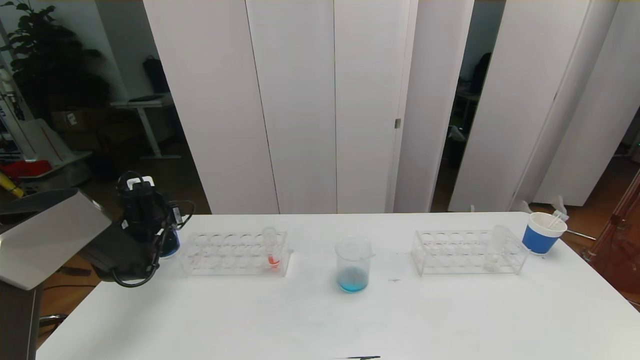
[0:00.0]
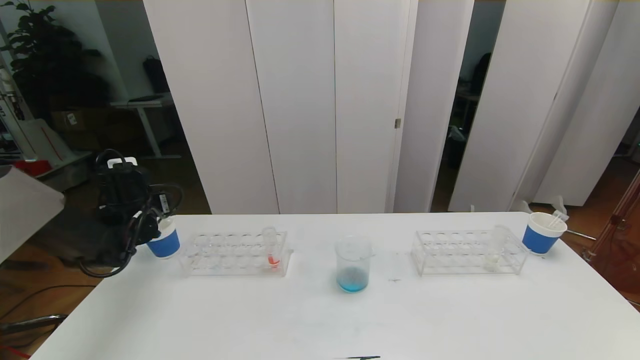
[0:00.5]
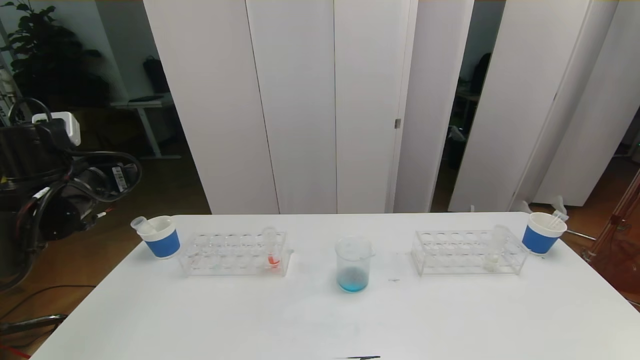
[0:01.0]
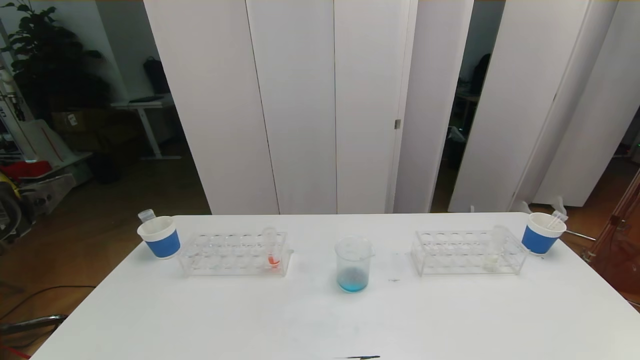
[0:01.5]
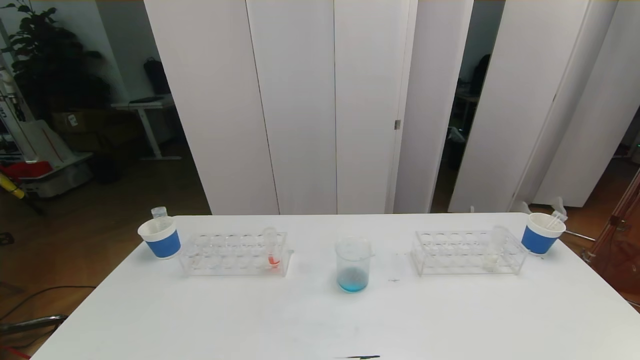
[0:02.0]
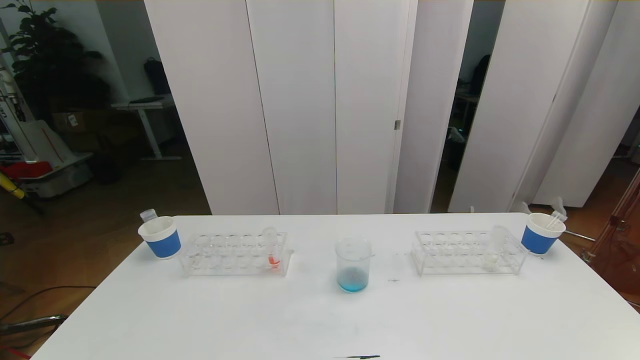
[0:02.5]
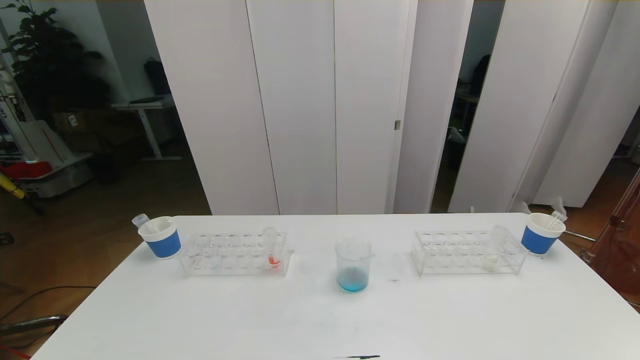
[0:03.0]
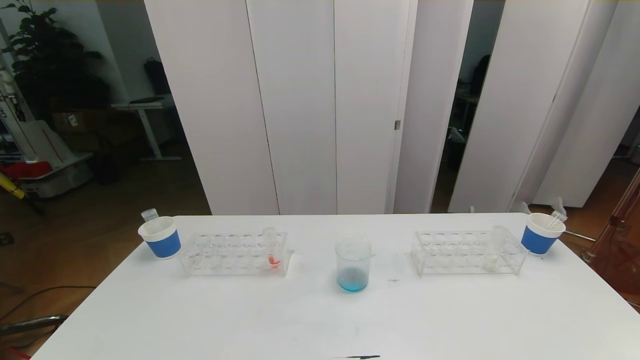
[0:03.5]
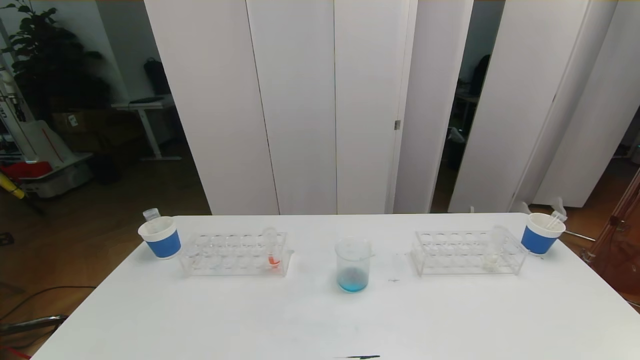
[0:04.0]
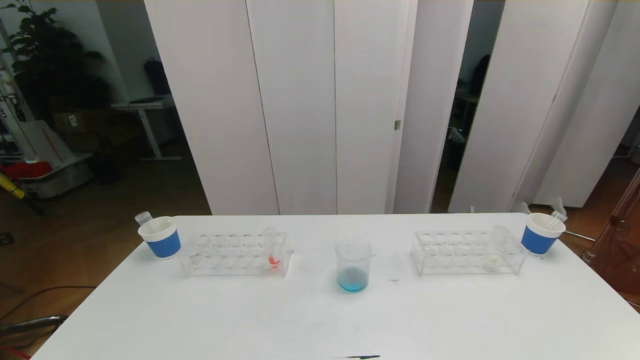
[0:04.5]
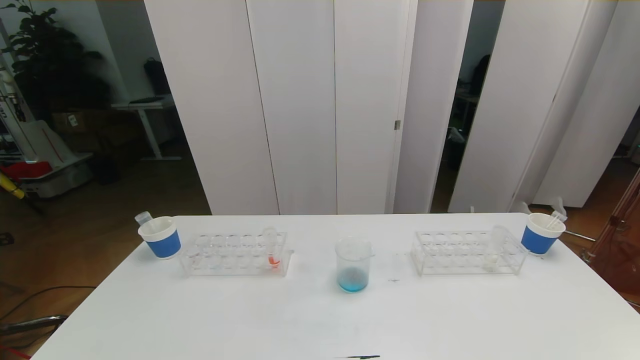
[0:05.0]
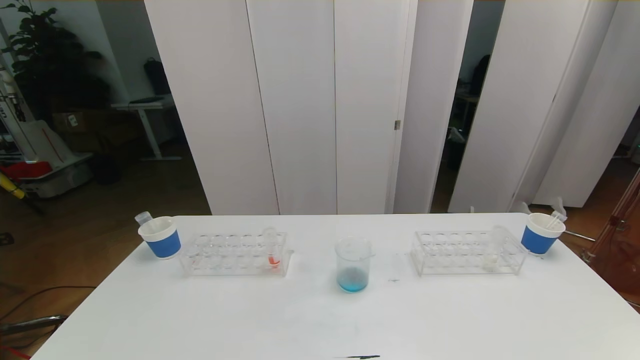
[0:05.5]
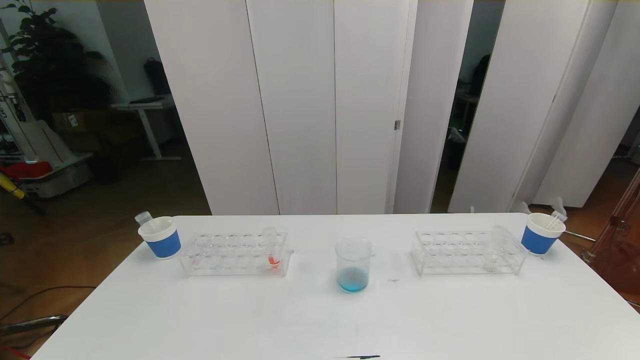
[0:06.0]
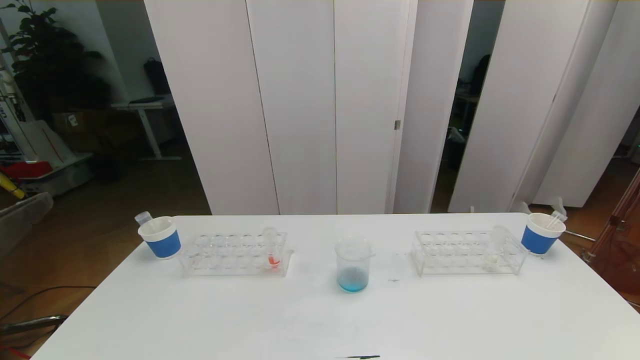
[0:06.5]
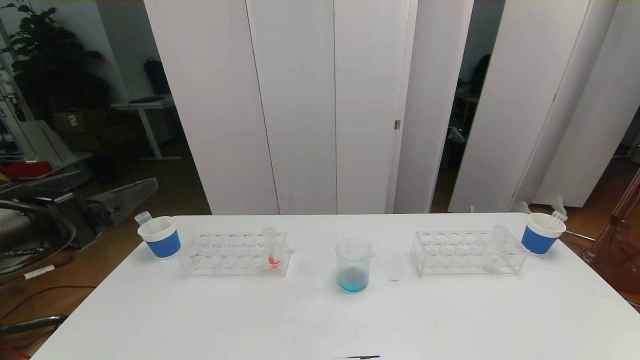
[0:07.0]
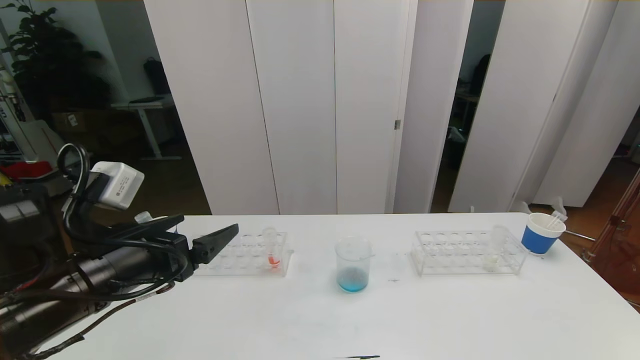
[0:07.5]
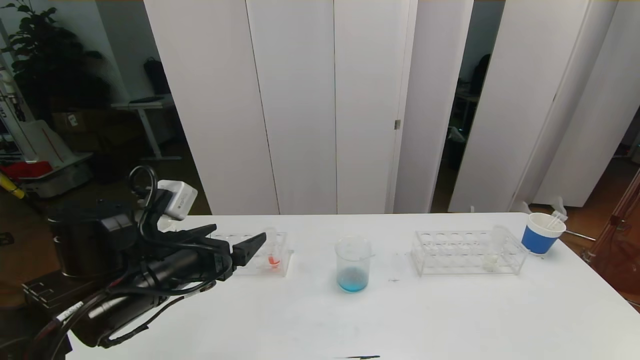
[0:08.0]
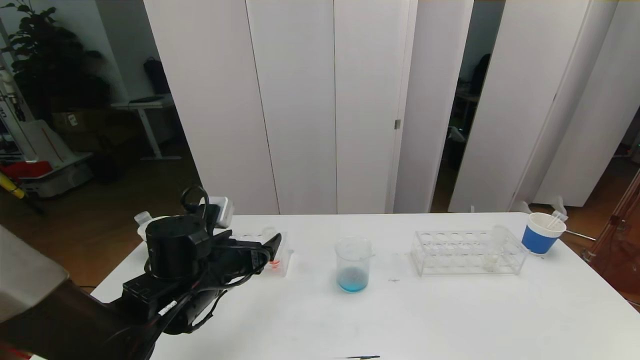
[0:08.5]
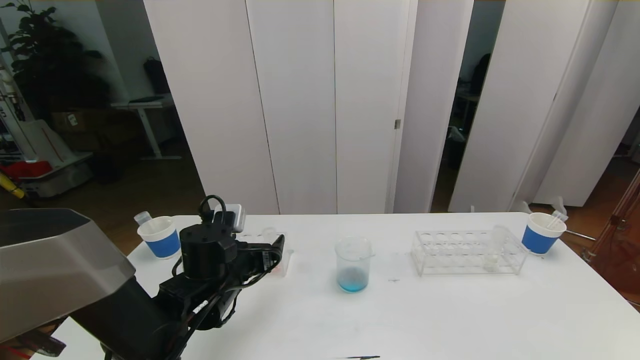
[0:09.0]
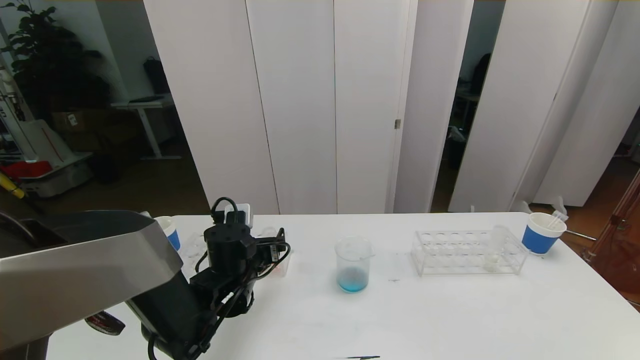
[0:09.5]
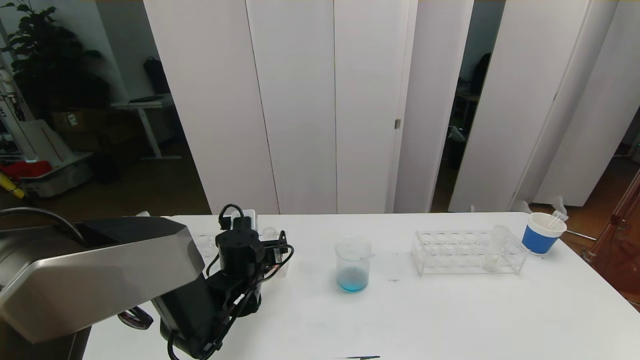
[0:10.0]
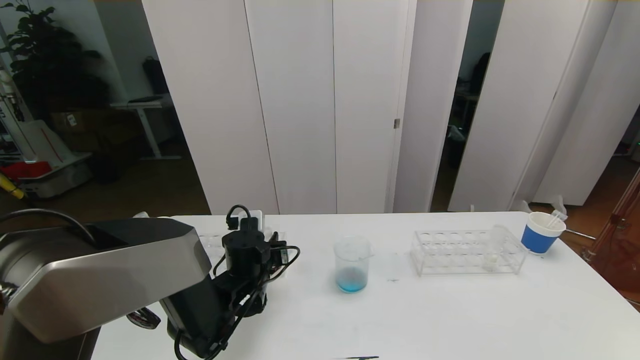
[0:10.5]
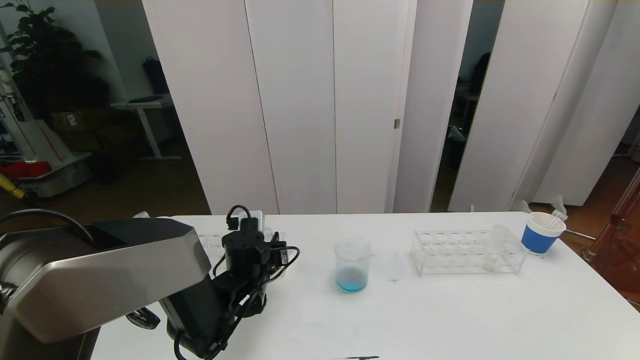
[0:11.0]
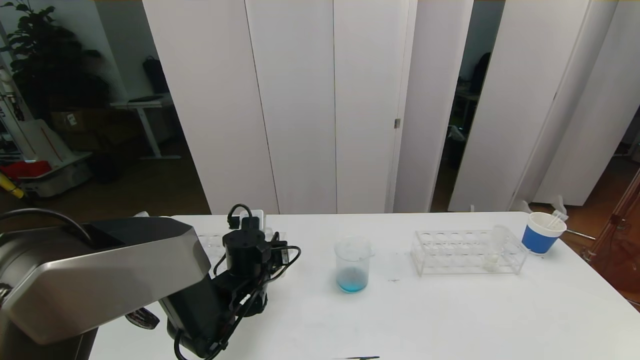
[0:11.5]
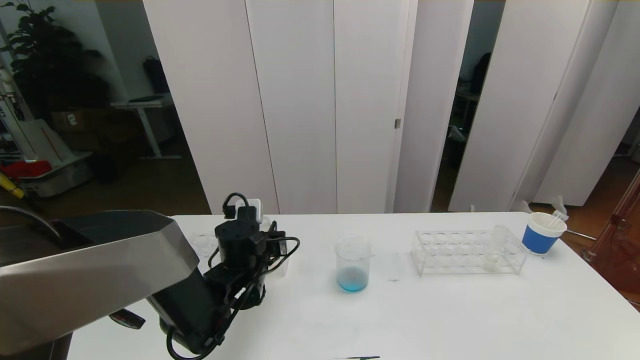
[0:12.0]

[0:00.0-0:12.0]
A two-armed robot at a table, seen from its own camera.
Task of the whole recording: pick up the test tube with red pigment the test tube with blue pigment and the test tube with white pigment by grippers and pour them into the beaker.
Step, 0:00.0 to 0:02.0: Pour the blue reagent into the graduated cylinder and place the test tube into the paper cup.
0:00.0 to 0:02.0: The left gripper goes about 50 cm backward and upward.
0:06.0 to 0:08.0: The left gripper shifts some 25 cm forward.
0:08.0 to 0:10.0: The left gripper is displaced downward, forward and to the right by roughly 15 cm.
0:10.0 to 0:12.0: The left gripper closes.

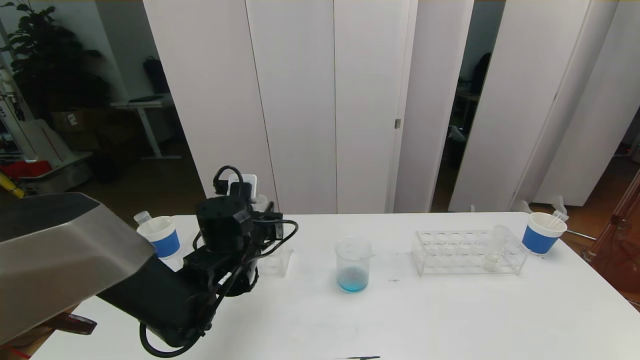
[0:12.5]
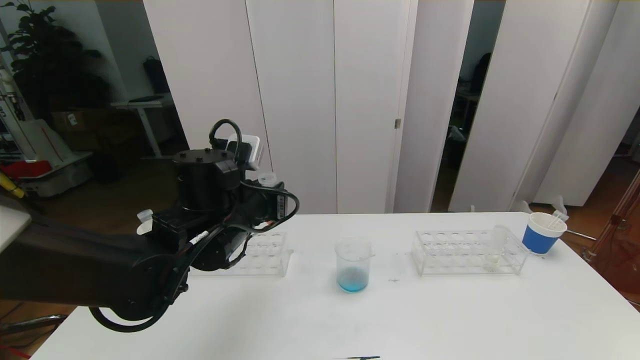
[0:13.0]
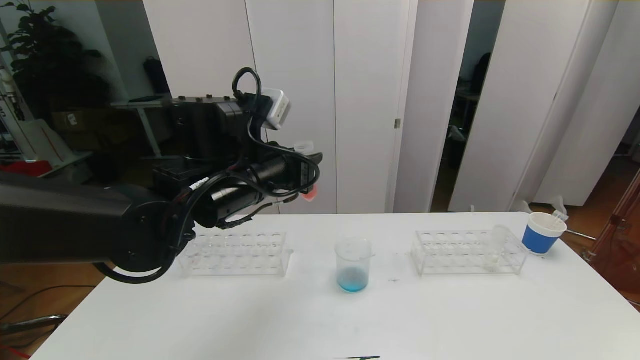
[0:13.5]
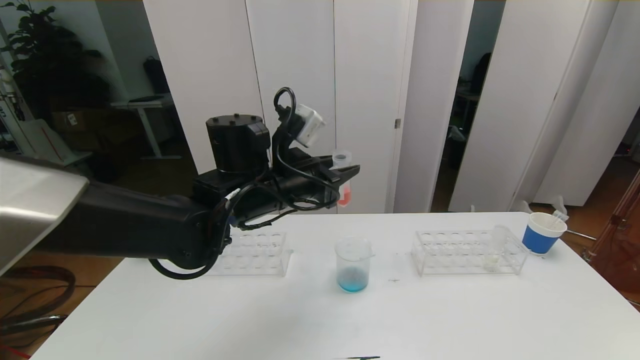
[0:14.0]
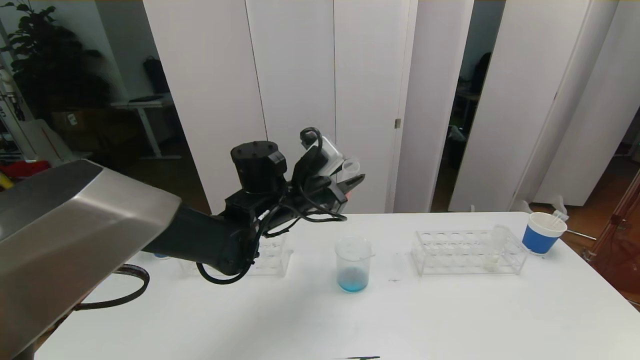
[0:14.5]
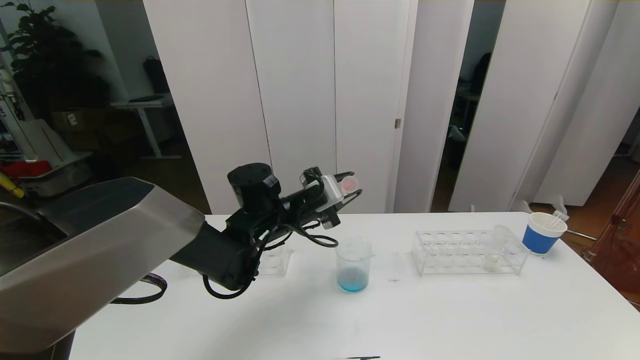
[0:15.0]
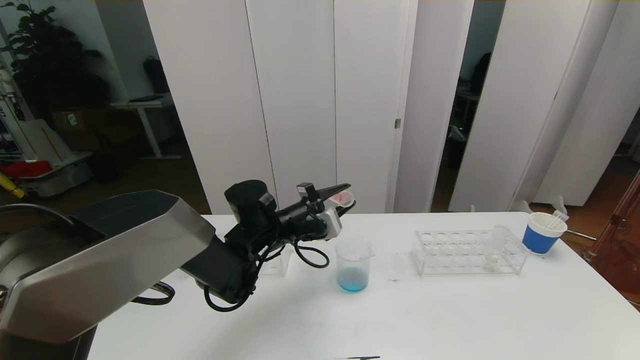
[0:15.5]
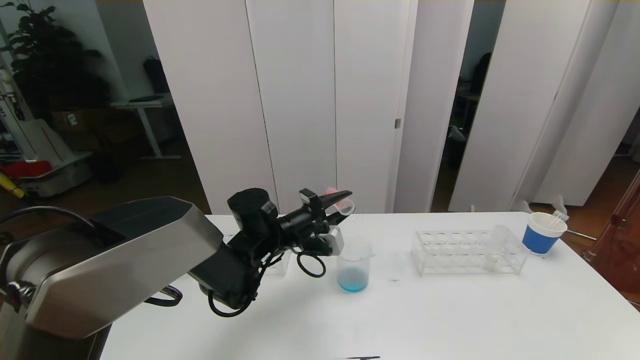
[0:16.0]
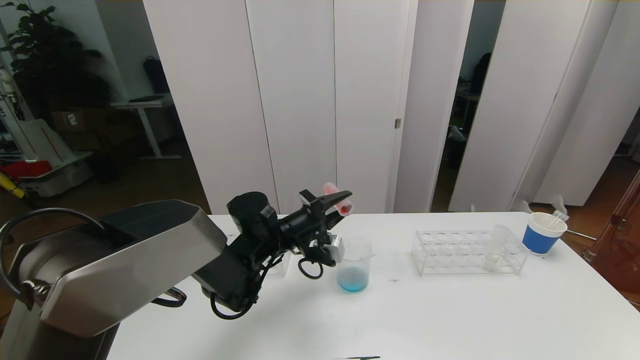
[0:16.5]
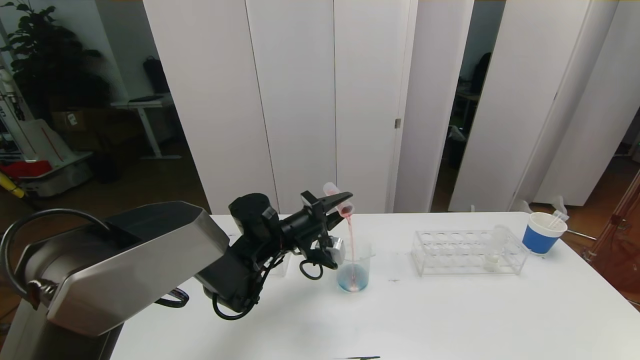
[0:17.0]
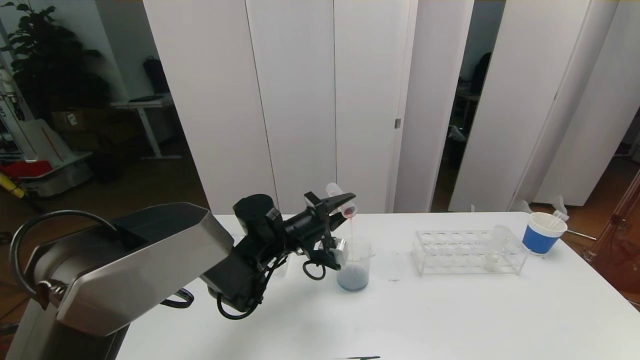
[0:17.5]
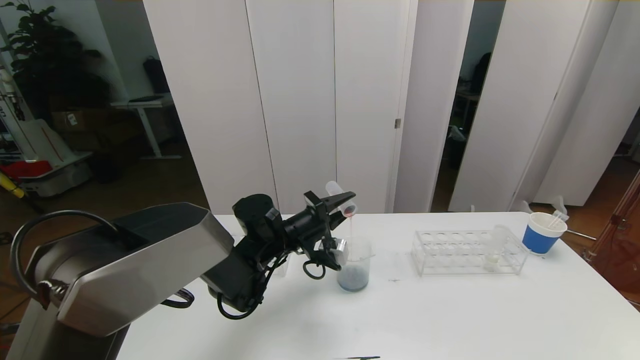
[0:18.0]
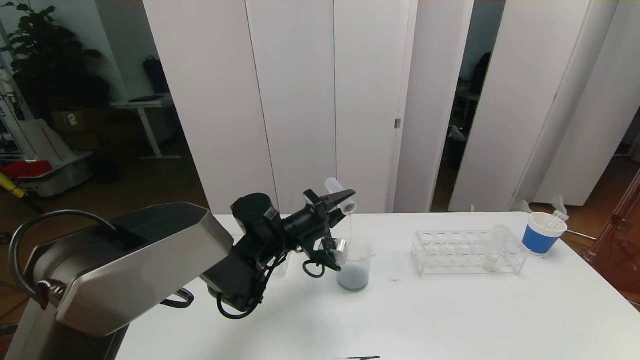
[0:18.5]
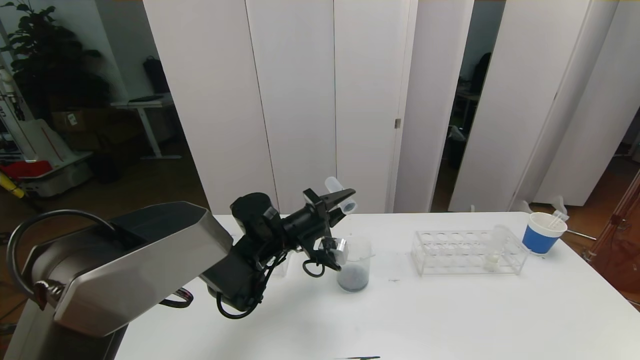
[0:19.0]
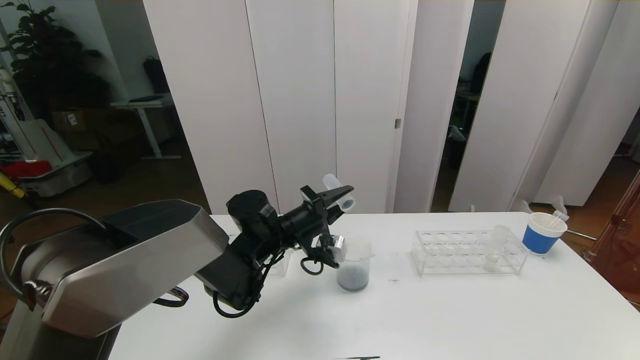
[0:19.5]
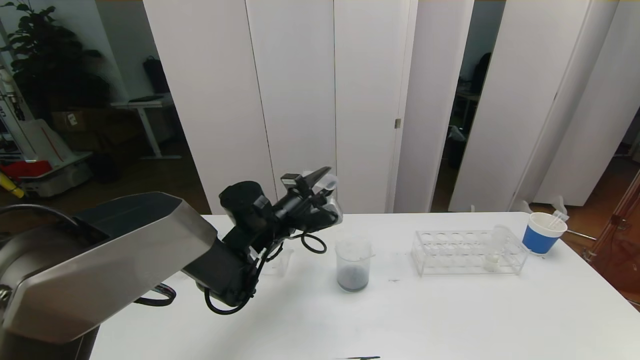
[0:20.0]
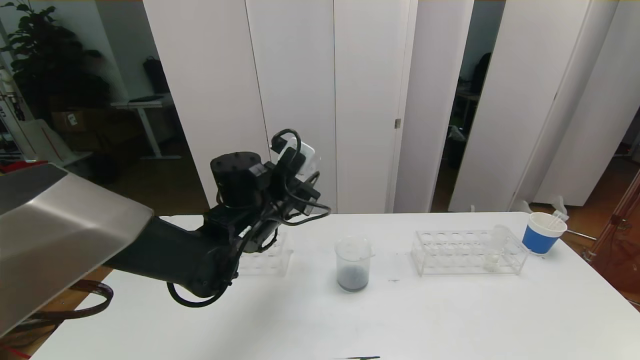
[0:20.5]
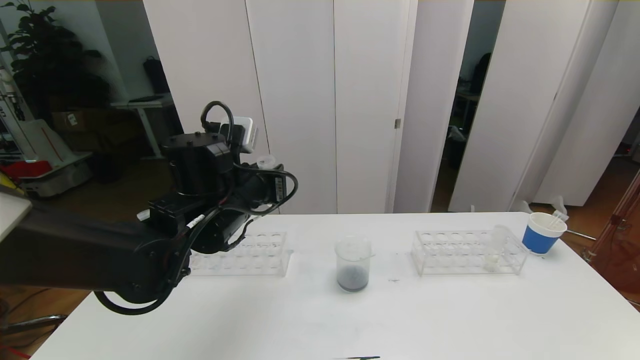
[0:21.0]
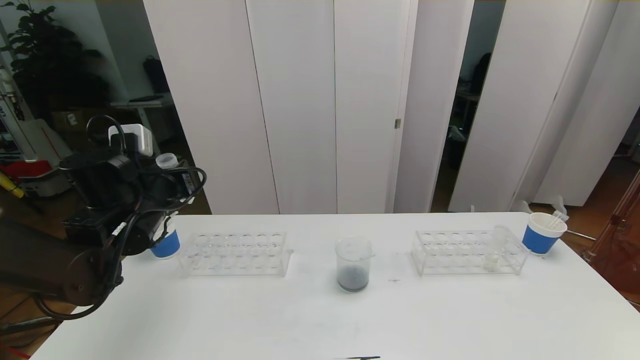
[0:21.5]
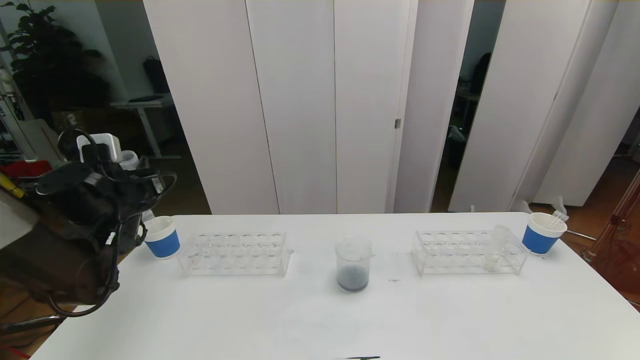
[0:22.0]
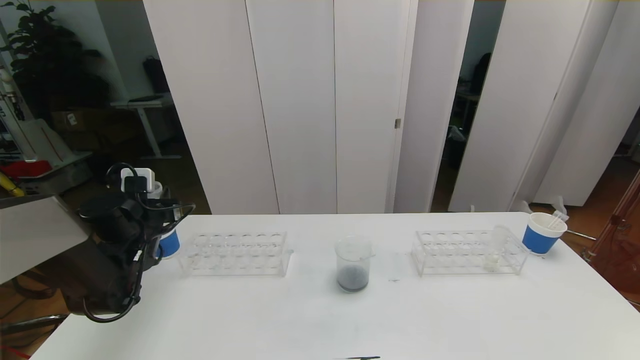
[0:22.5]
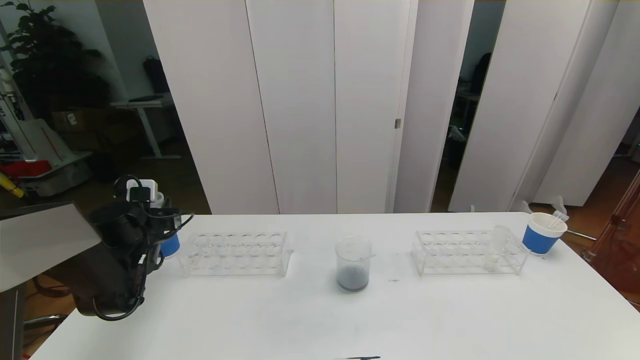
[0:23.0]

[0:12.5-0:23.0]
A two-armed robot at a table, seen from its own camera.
Task of the whole recording: pick up the test tube with red pigment the test tube with blue pigment and the test tube with white pigment by grippers and pour them into the beaker.
0:12.5 to 0:14.5: The left gripper is displaced to the right and upward by some 10 cm.
0:14.5 to 0:16.5: The left gripper is displaced downward by roughly 10 cm.
0:16.5 to 0:19.0: There are only small adjustments of the grippers.
0:19.0 to 0:21.0: The left gripper travels upward and backward by some 15 cm.
0:21.0 to 0:23.0: The left gripper travels to the left and downward by about 25 cm.
